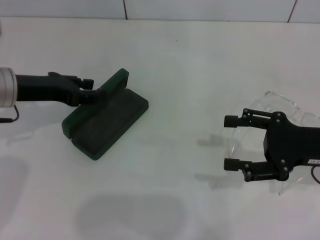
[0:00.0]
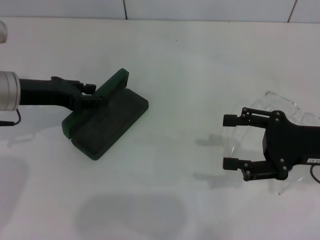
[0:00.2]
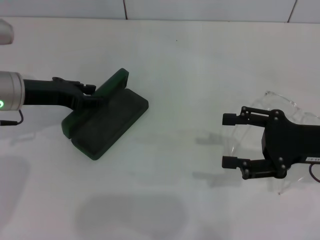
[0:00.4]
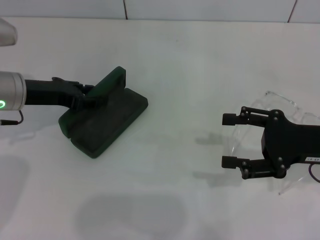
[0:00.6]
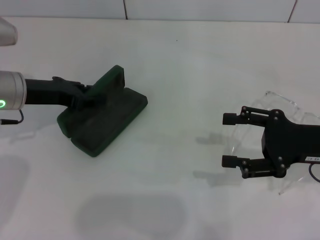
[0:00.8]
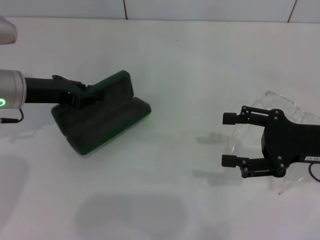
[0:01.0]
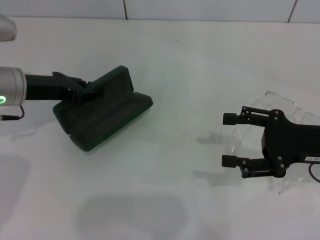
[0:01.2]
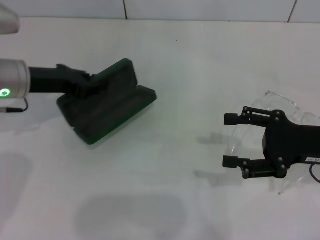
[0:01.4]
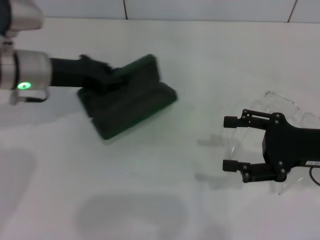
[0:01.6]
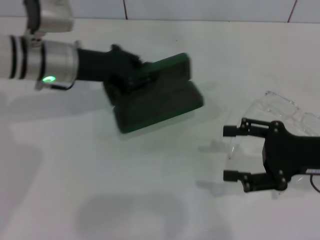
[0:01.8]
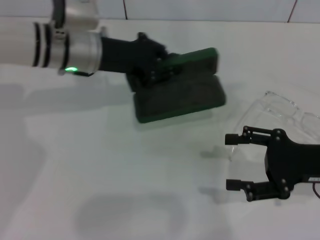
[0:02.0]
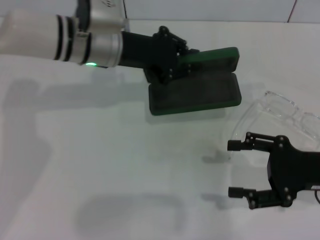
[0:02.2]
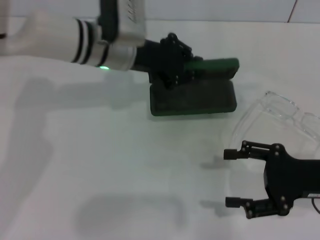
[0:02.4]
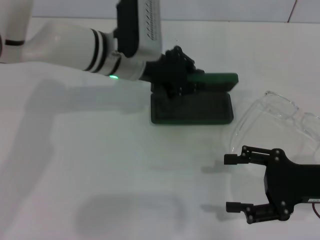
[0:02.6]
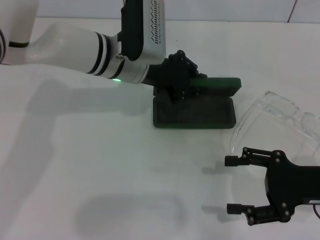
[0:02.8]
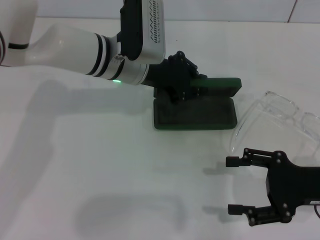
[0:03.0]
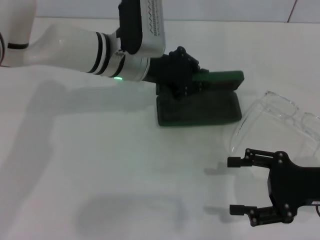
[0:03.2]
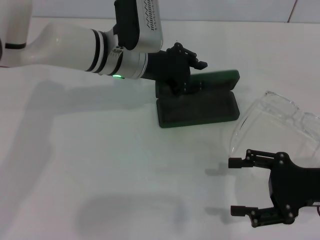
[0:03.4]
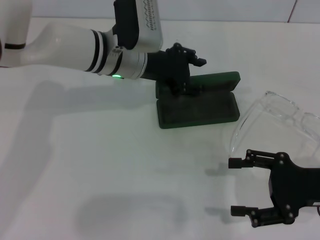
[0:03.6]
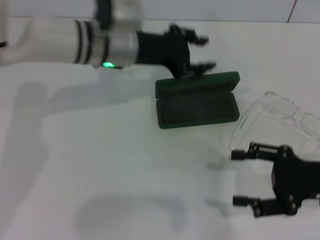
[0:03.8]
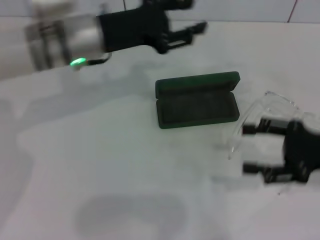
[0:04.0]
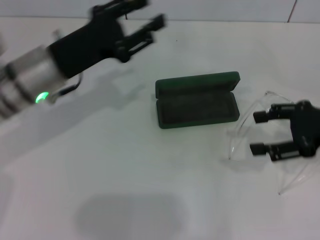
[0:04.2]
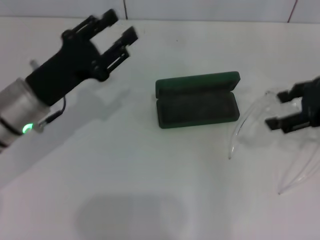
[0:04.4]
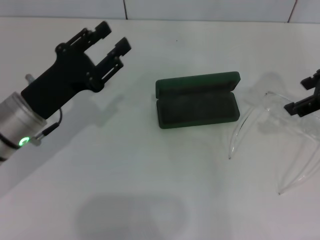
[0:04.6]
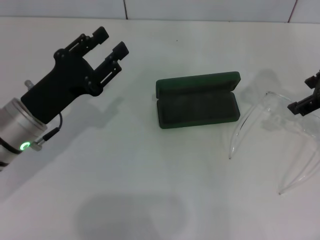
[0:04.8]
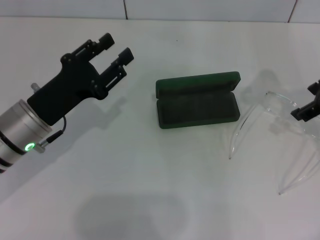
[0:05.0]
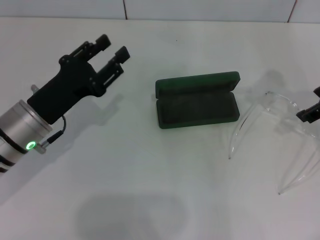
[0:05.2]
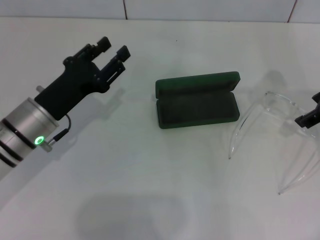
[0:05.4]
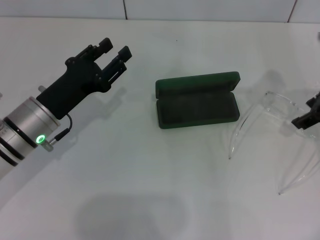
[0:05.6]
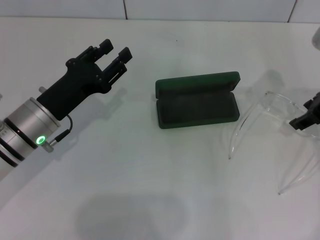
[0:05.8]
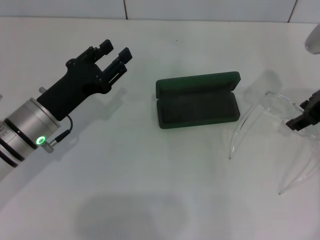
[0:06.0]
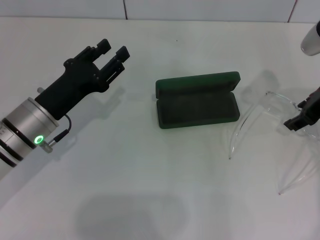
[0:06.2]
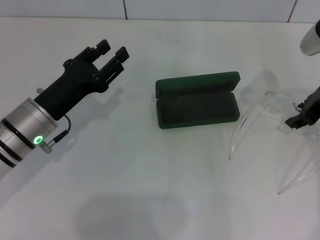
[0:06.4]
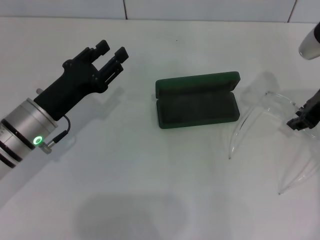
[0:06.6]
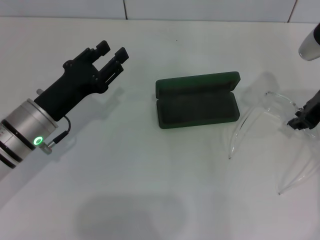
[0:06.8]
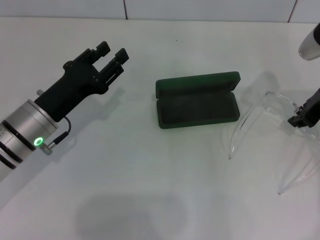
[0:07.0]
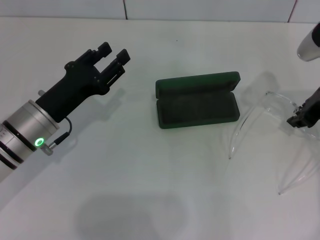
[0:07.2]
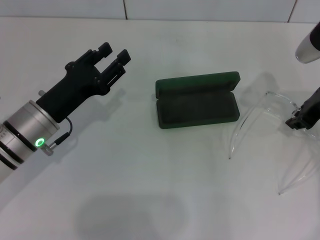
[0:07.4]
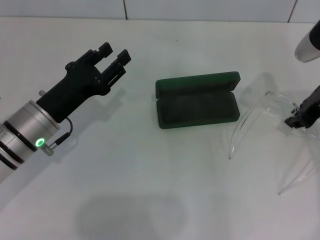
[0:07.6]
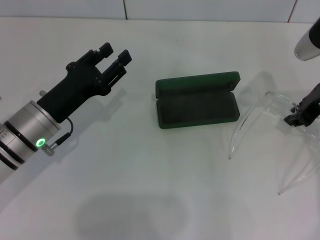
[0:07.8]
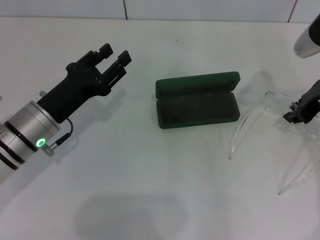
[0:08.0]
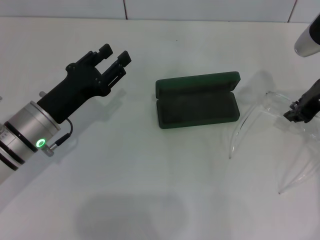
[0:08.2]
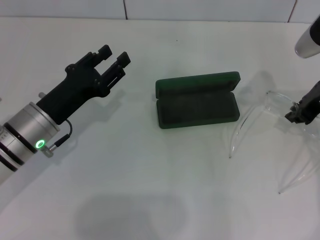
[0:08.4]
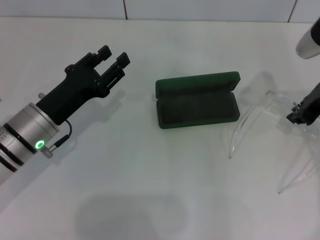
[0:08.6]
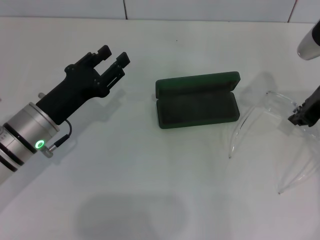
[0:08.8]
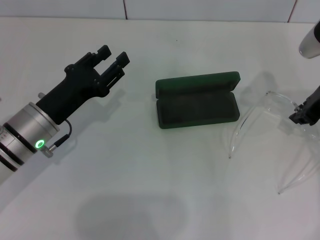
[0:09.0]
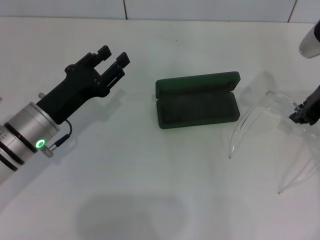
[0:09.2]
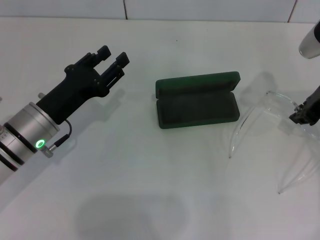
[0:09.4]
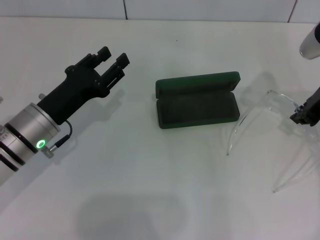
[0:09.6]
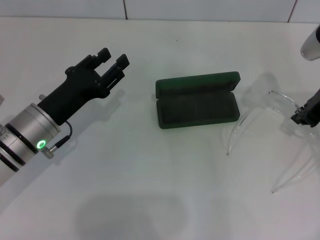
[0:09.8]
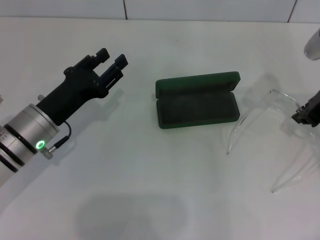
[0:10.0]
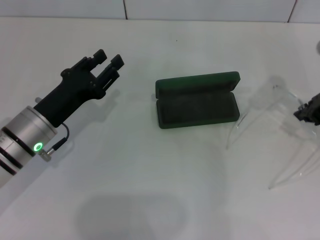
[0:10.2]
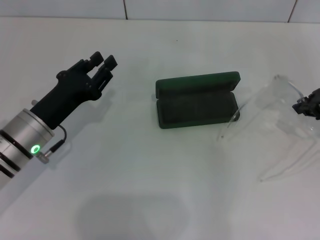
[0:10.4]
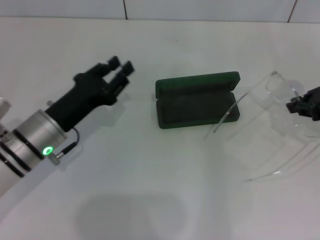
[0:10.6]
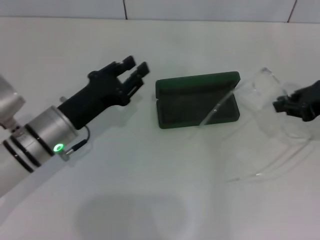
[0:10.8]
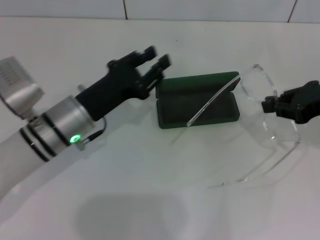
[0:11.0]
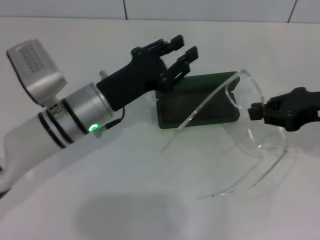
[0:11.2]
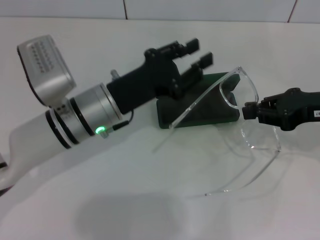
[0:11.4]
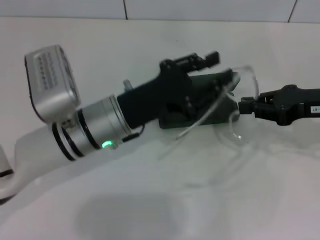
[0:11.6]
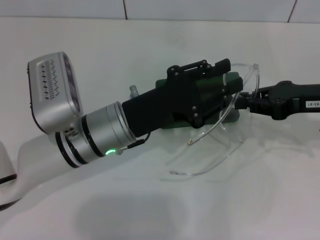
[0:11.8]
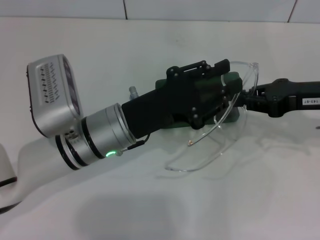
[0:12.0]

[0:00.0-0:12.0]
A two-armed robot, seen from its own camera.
Step, 0:01.0 to 0:03.4: Place the glasses case in the center of the table with your left hand.
Step, 0:03.6 to 0:09.8: Grab the eyeglass frame with your right hand.
0:00.0 to 0:01.6: The left gripper shifts by approximately 5 cm, and closes.
0:01.6 to 0:03.0: The left gripper goes approximately 15 cm to the right.
0:03.0 to 0:04.4: The left gripper is displaced to the left and backward by roughly 15 cm, and opens its fingers. The right gripper heads upward and forward, covering about 15 cm.
0:04.4 to 0:06.0: The right gripper goes approximately 5 cm forward.
0:06.0 to 0:07.6: The right gripper closes up.
0:07.6 to 0:09.0: Both grippers stay put.
0:09.0 to 0:10.4: The grippers move only a little.
0:10.4 to 0:12.0: The left gripper heads to the right, covering roughly 10 cm.

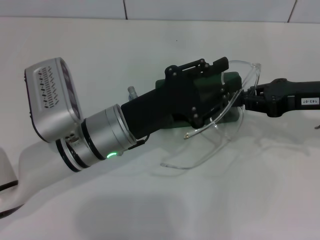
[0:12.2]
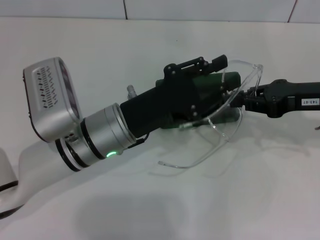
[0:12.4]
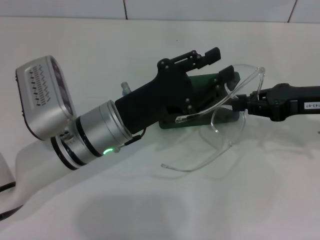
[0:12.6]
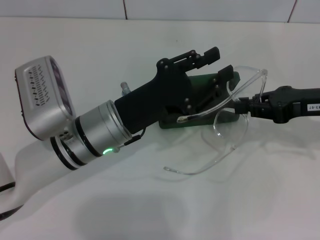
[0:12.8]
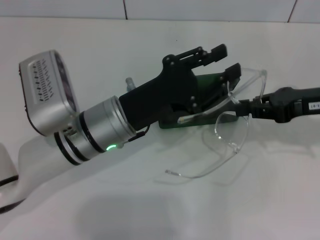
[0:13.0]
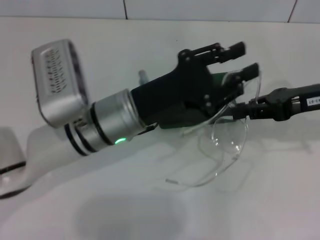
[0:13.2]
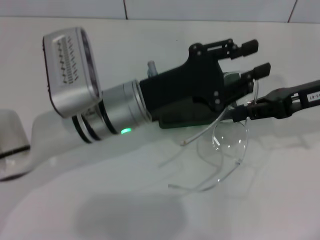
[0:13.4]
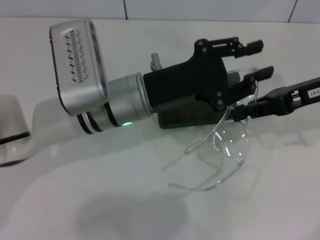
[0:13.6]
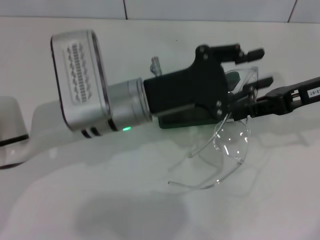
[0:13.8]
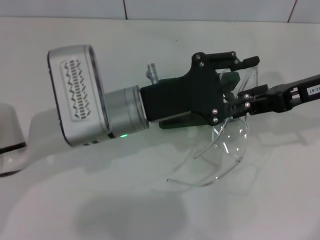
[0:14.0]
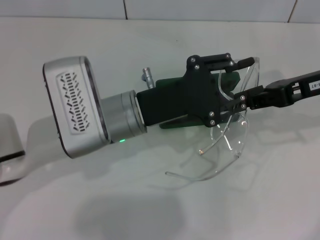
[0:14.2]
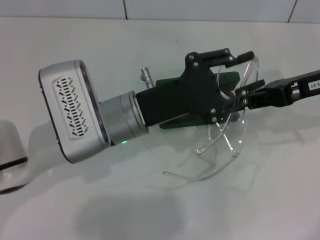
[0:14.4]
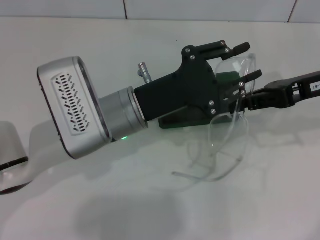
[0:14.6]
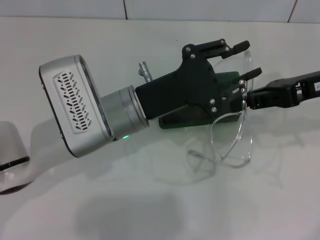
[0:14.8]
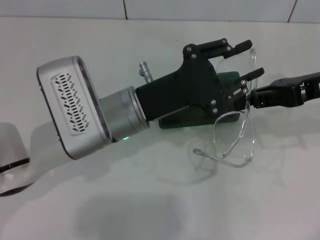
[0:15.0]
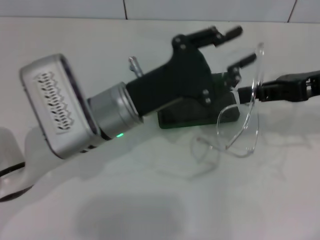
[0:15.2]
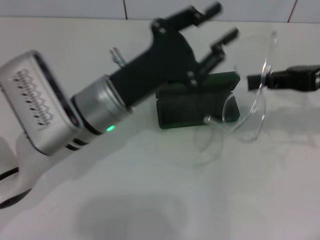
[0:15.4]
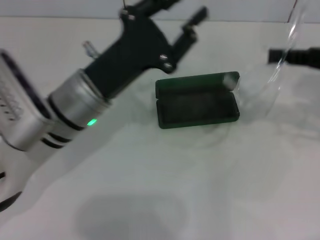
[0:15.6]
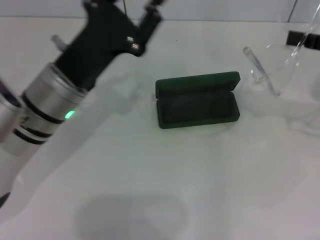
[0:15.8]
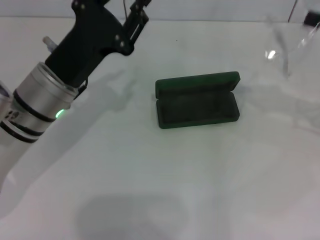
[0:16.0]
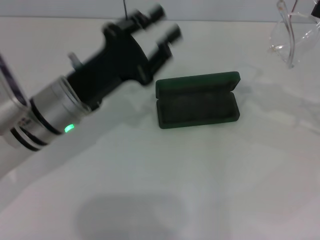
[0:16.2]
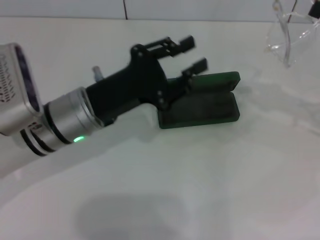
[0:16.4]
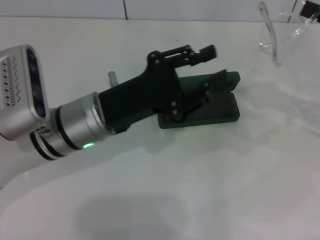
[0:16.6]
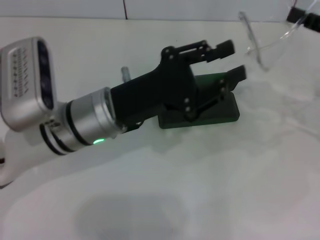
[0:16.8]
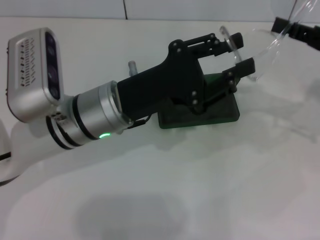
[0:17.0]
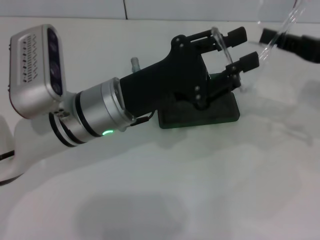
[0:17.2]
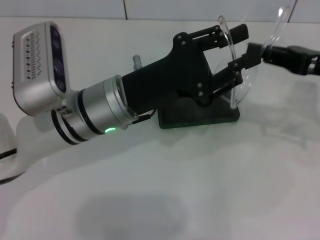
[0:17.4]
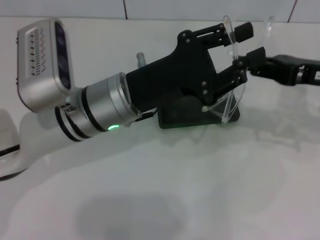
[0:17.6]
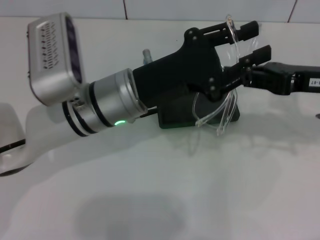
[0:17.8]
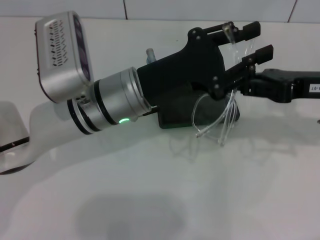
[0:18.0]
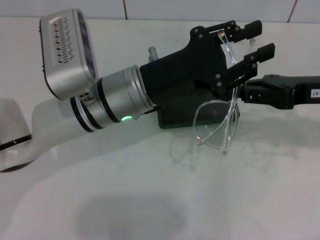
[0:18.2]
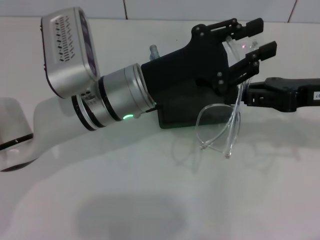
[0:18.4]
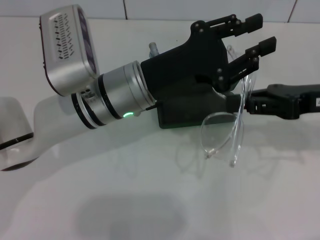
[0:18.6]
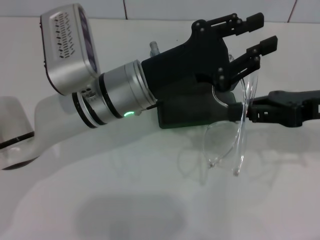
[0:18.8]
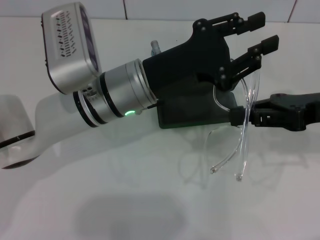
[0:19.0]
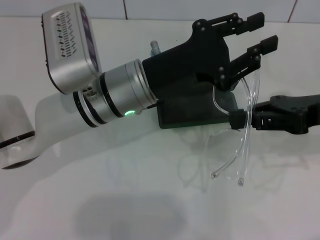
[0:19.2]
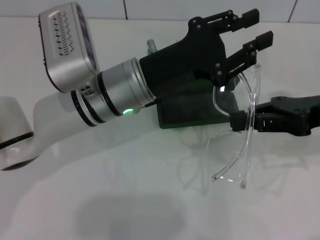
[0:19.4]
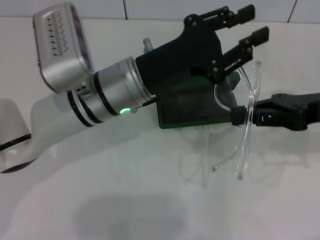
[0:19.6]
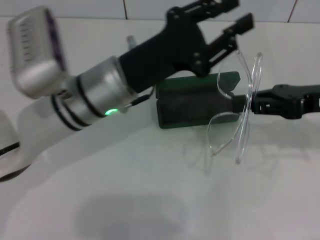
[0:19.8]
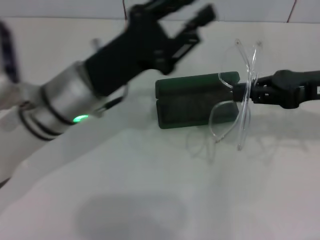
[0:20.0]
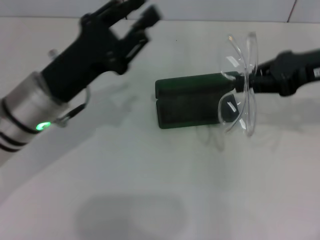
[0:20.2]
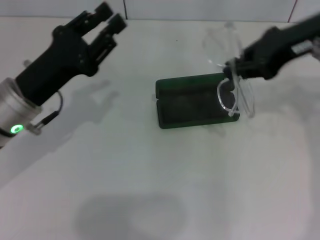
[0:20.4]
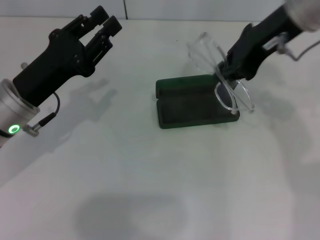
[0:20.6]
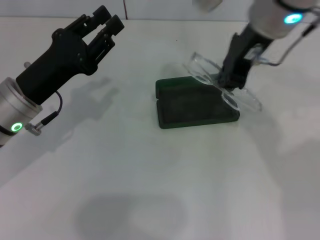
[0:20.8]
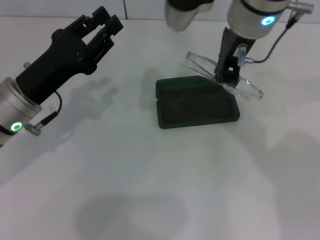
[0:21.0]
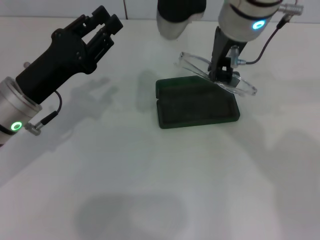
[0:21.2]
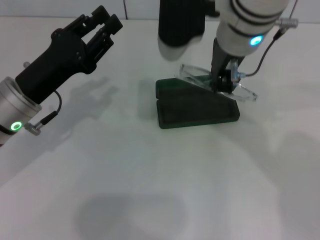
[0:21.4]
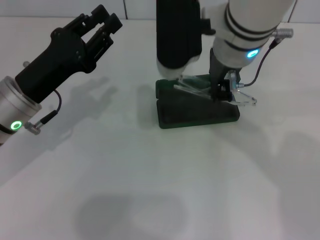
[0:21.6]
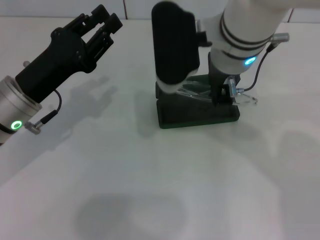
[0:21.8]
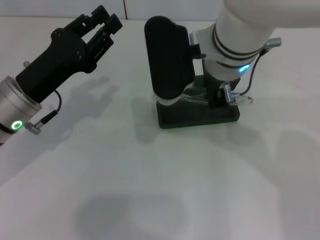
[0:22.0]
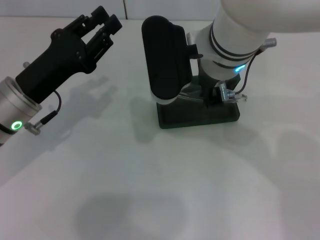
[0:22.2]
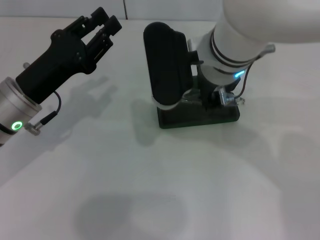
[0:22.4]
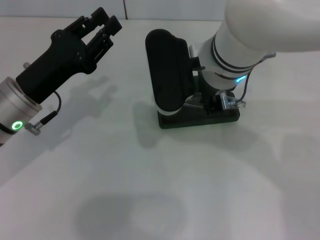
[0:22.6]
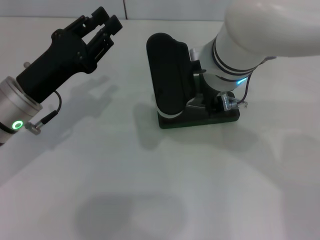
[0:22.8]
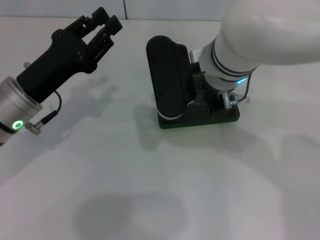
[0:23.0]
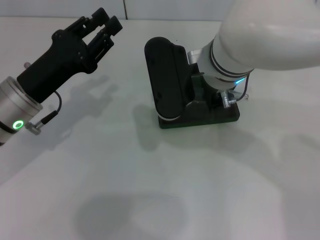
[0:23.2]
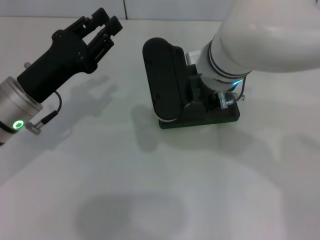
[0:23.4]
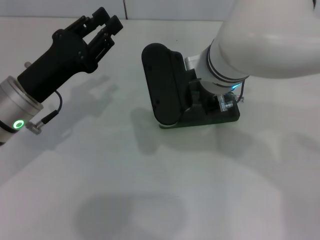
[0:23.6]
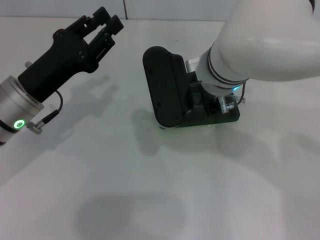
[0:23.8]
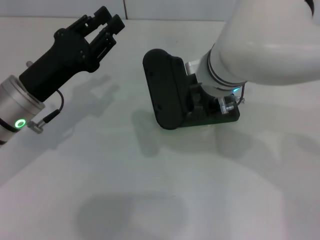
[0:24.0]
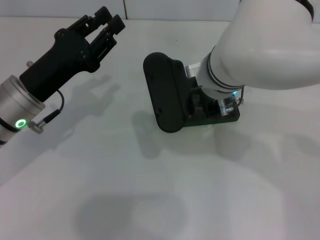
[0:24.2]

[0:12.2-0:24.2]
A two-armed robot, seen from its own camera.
Step, 0:12.2 to 0:19.2: Fold the frame with your left hand.
0:13.8 to 0:15.2: There are only small adjustments of the grippers.
0:15.2 to 0:16.6: The right gripper heads to the right, covering roughly 5 cm.
0:16.6 to 0:18.2: The left gripper moves roughly 5 cm; the right gripper moves to the left, some 10 cm.
0:19.8 to 0:21.2: The left gripper travels to the left by about 10 cm. The right gripper travels to the left and upward by about 25 cm.
0:21.2 to 0:22.6: The right gripper travels downward by some 5 cm.
0:22.6 to 0:24.2: The grippers stay close to where they were, moving slightly.
